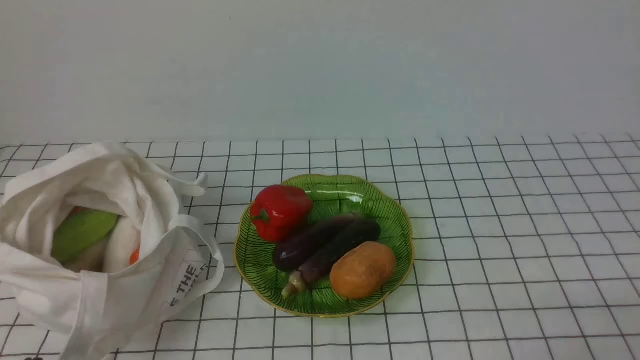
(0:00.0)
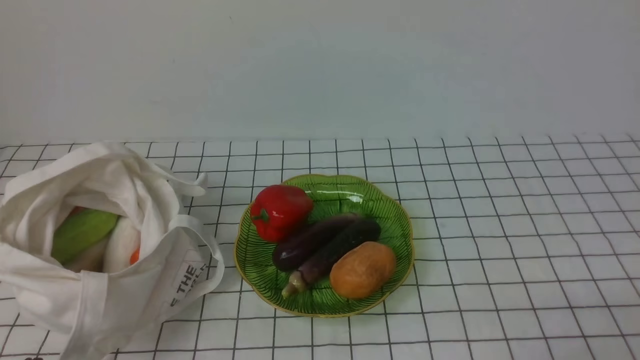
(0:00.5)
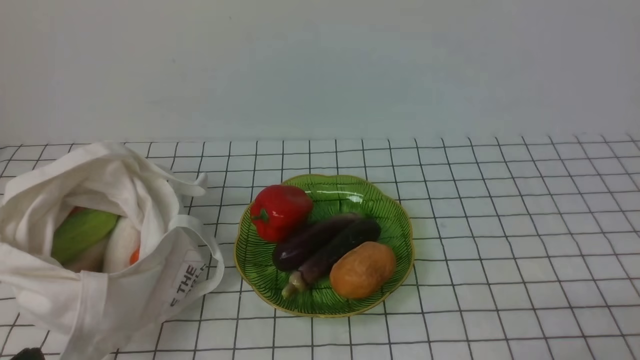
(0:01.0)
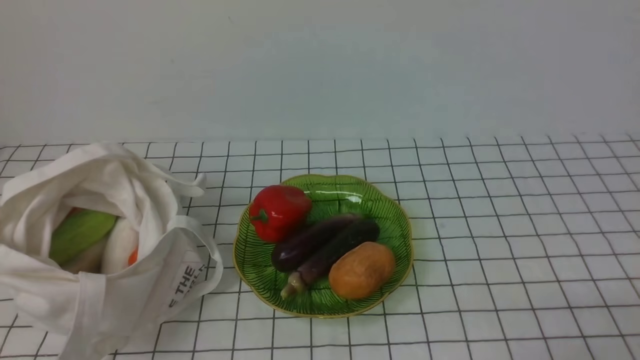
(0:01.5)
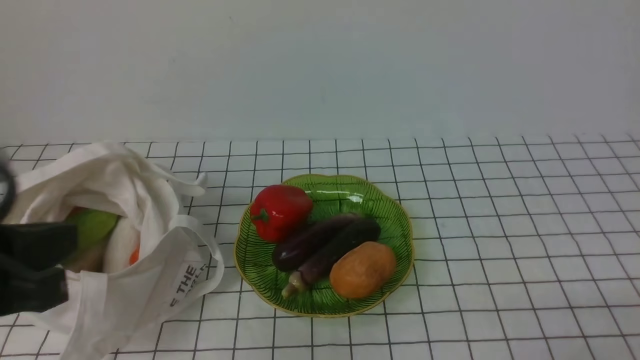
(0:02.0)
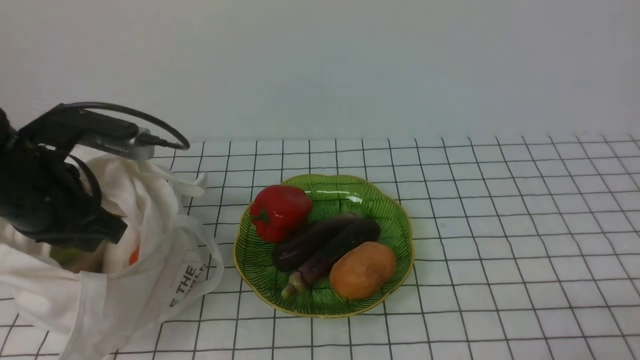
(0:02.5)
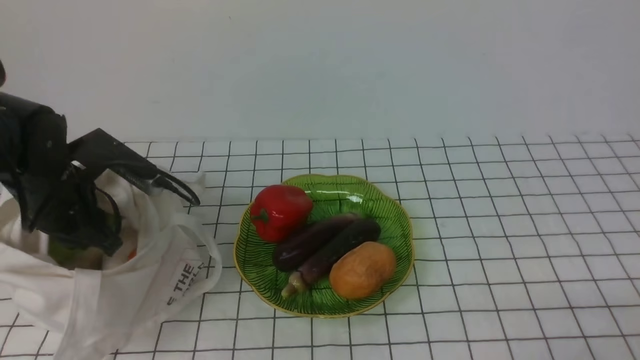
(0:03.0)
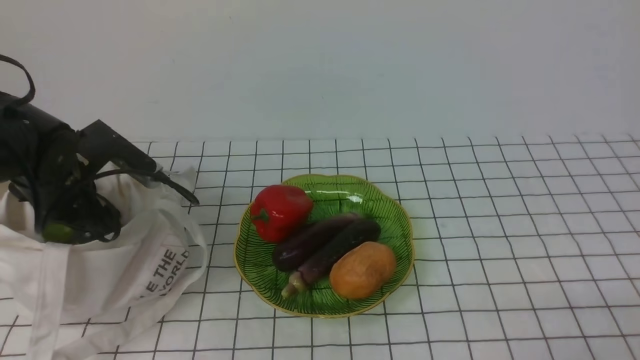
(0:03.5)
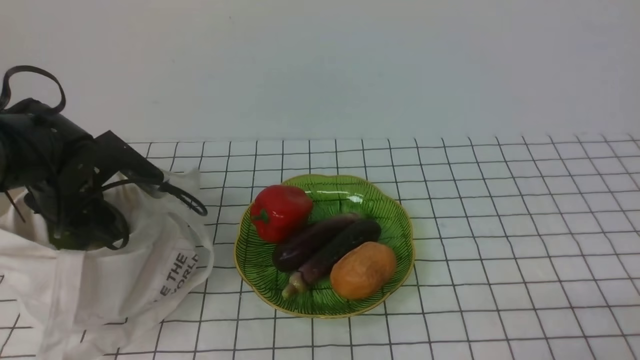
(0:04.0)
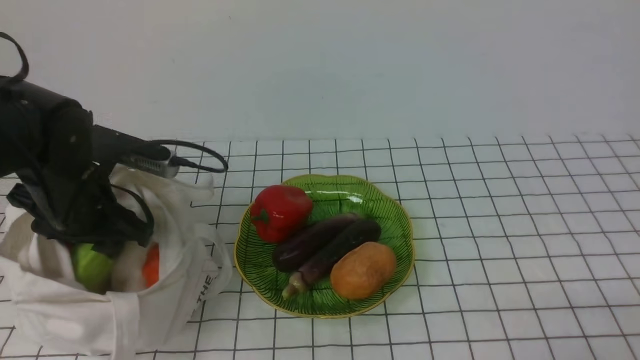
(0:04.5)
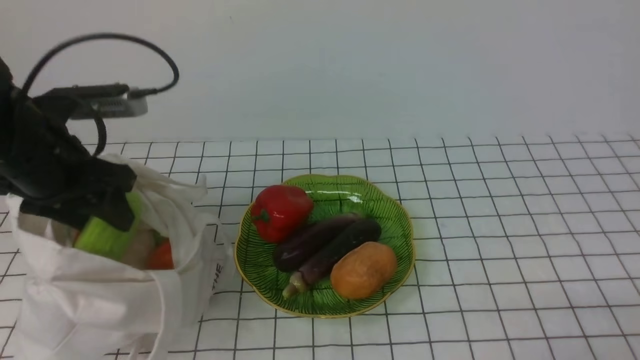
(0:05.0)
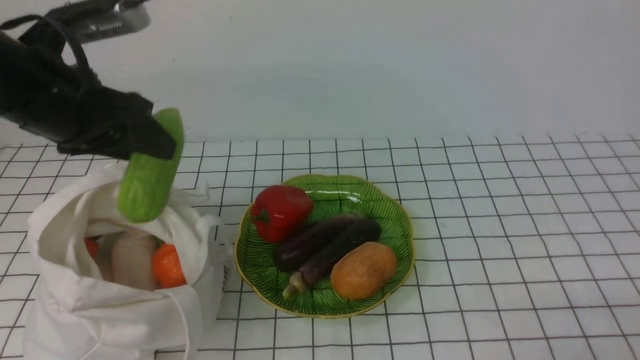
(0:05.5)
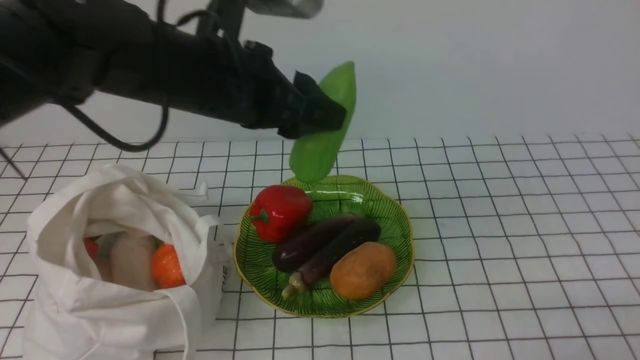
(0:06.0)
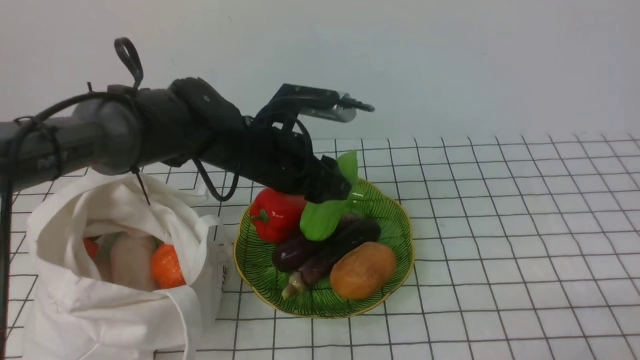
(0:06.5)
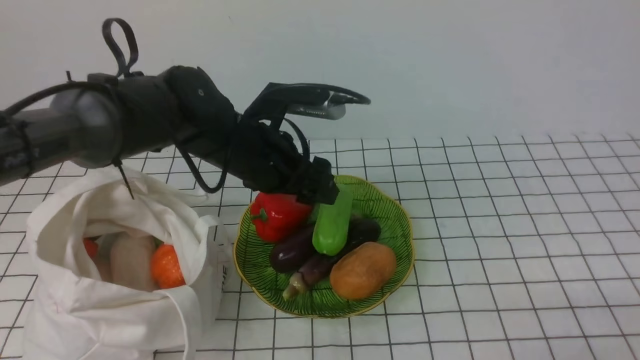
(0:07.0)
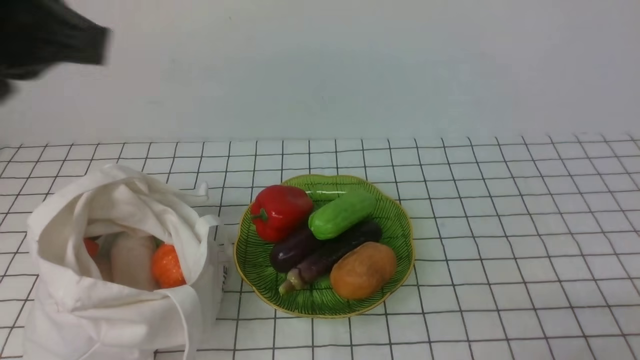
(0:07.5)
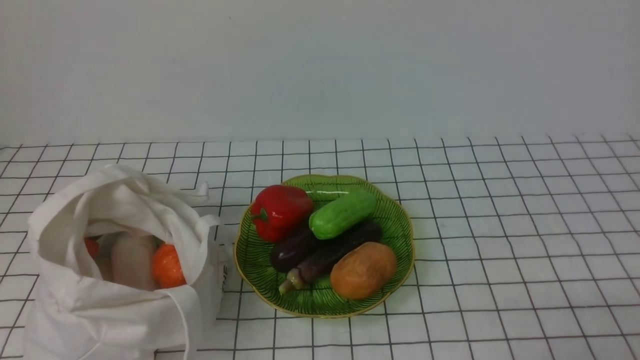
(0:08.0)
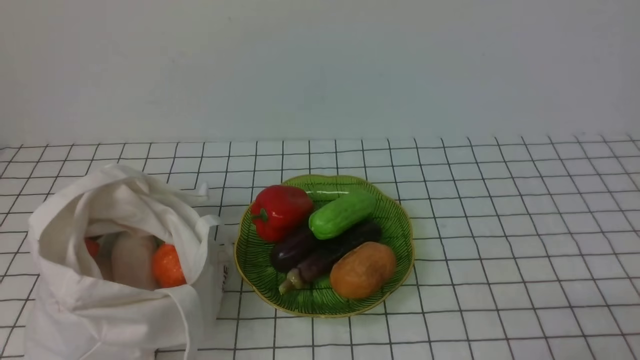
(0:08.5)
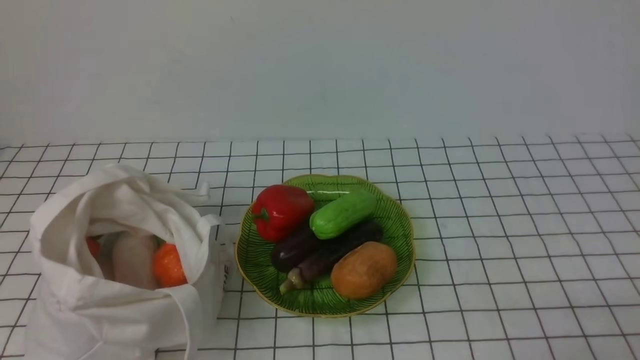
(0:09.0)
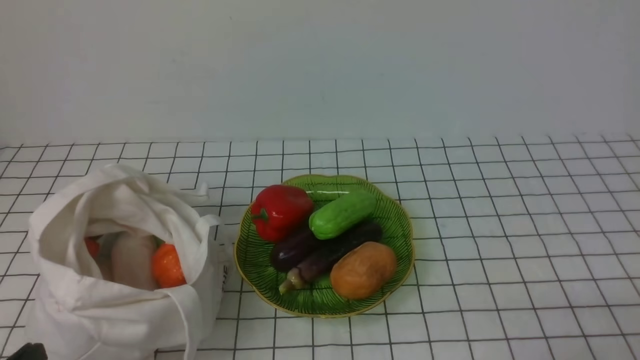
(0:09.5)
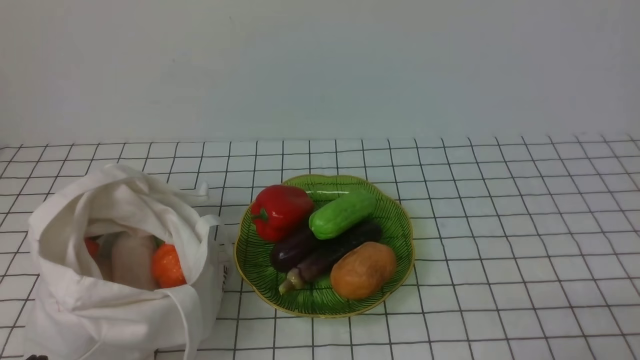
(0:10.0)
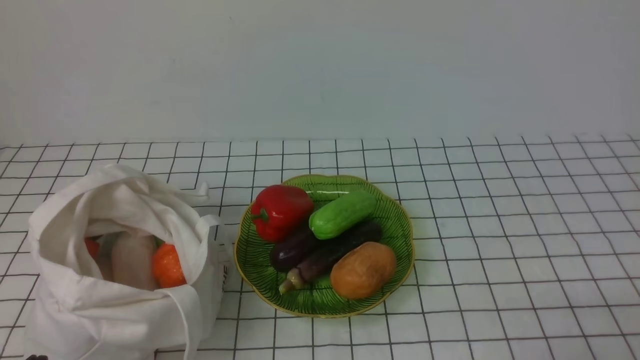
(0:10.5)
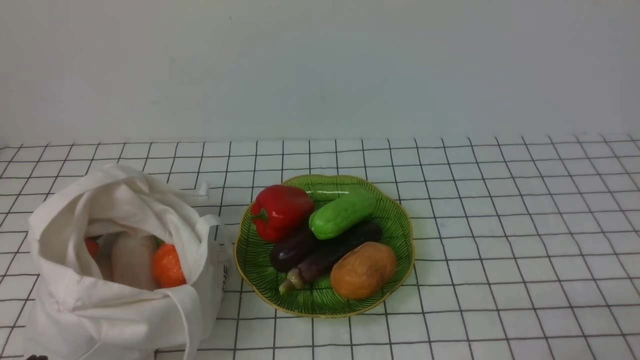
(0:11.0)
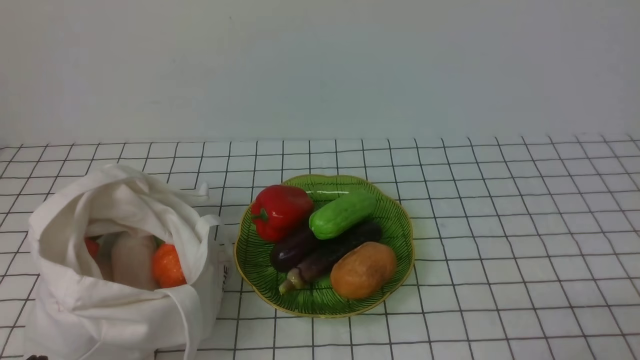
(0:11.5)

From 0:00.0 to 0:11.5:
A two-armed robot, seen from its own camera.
Task of the whole recording: take vegetables from bag on white checkered tablecloth place on plate.
Step, from 0:00.0 to 0:03.5: Grasp the bitter melon with left gripper.
Step, from 0:04.5 to 0:07.0: Place the bitter melon on the plate with left gripper.
From 0:02.0 to 0:04.0: The left gripper heads forward and downward, covering some 30 cm, and opens up.
From 0:04.0 to 0:06.0: The left gripper goes some 20 cm to the right and upward.
From 0:06.0 to 0:07.5: The left gripper is displaced backward, upward and to the left by about 15 cm, and closes up.
From 0:07.5 to 0:09.5: The left gripper travels downward and backward by some 30 cm.
